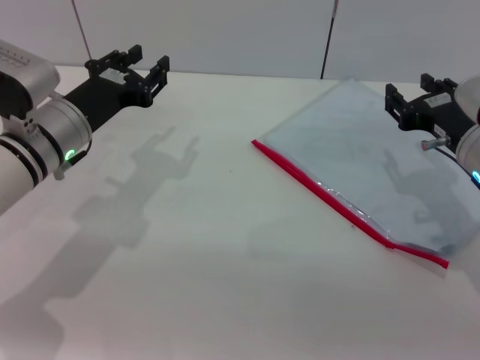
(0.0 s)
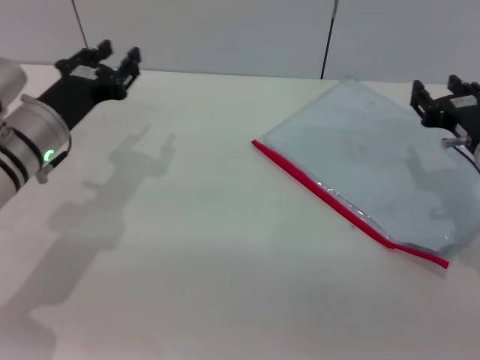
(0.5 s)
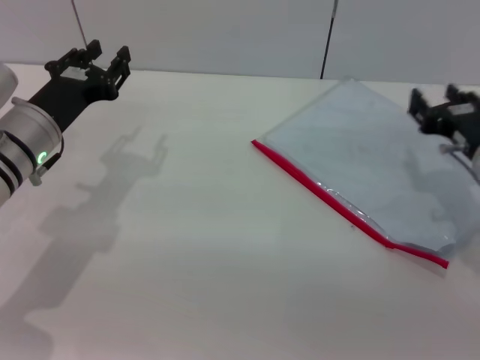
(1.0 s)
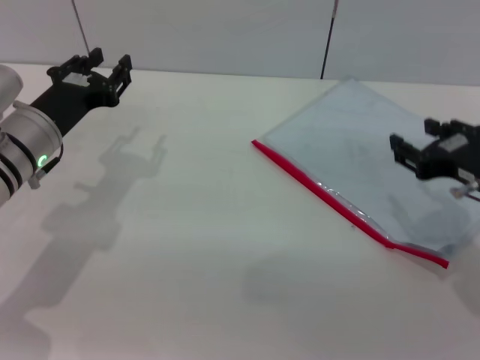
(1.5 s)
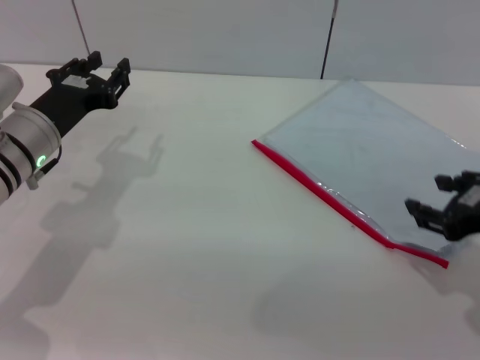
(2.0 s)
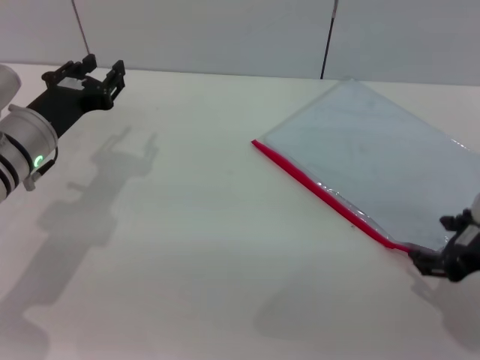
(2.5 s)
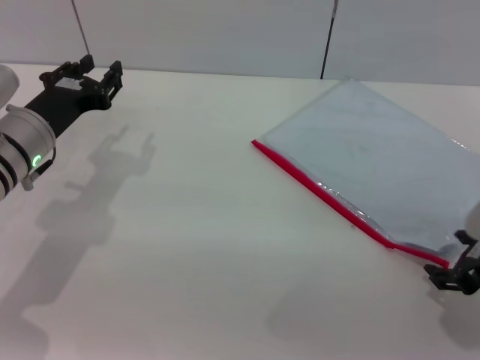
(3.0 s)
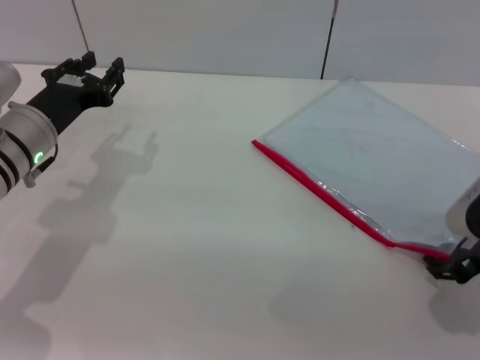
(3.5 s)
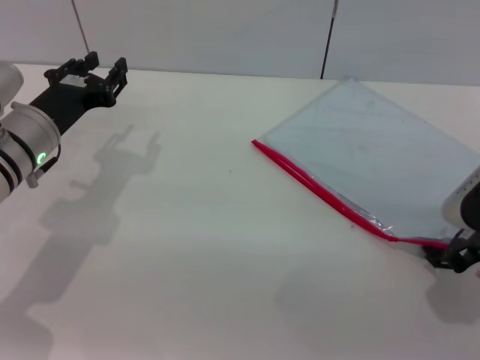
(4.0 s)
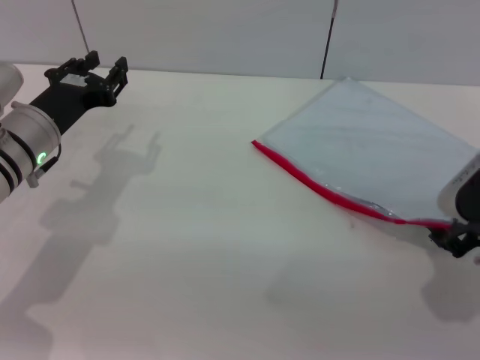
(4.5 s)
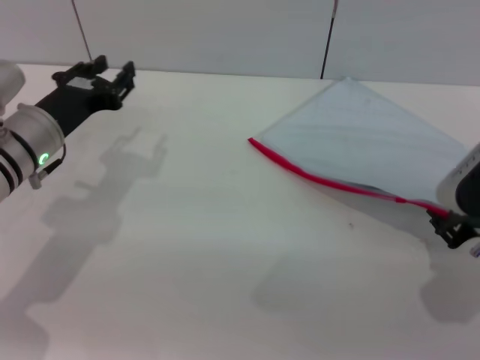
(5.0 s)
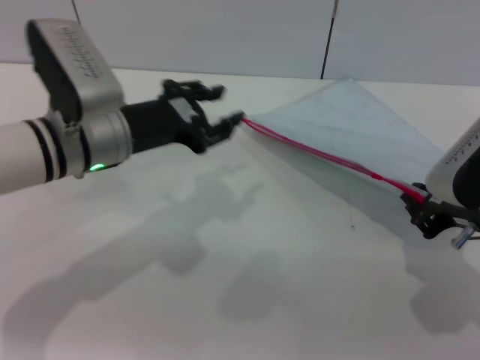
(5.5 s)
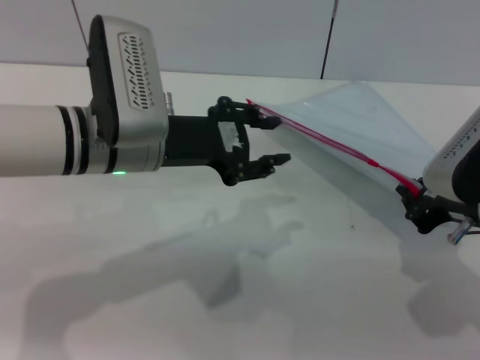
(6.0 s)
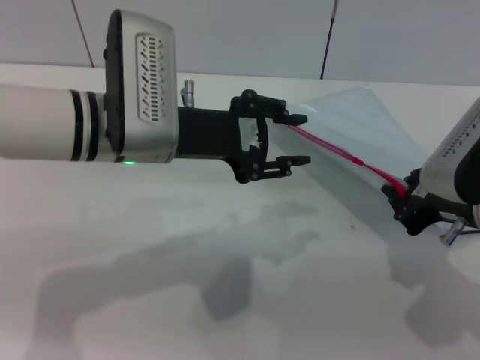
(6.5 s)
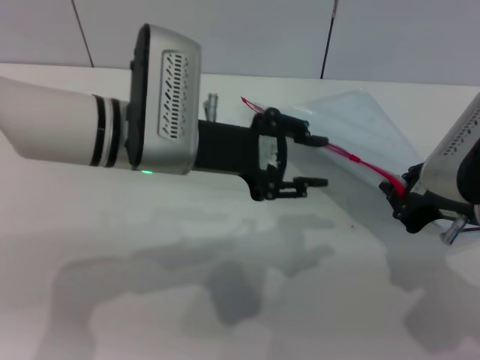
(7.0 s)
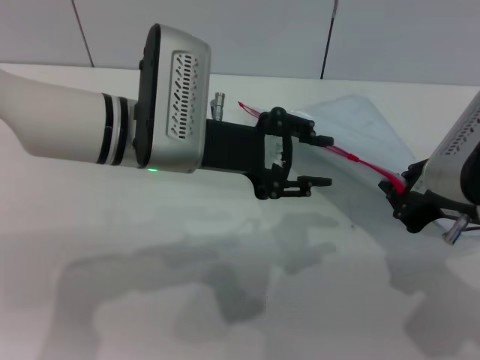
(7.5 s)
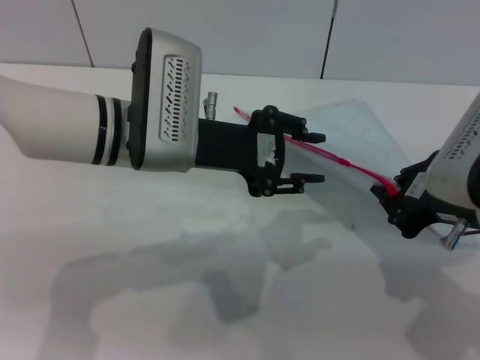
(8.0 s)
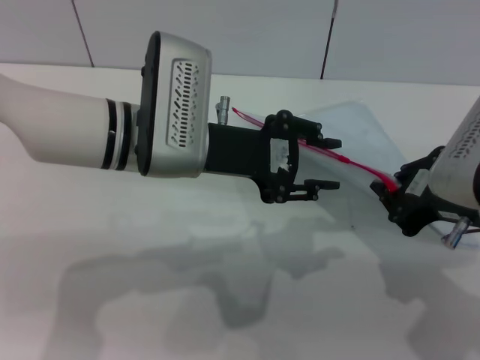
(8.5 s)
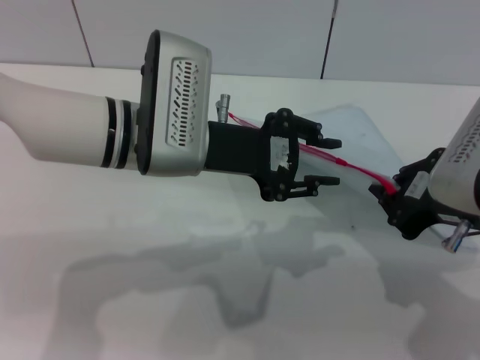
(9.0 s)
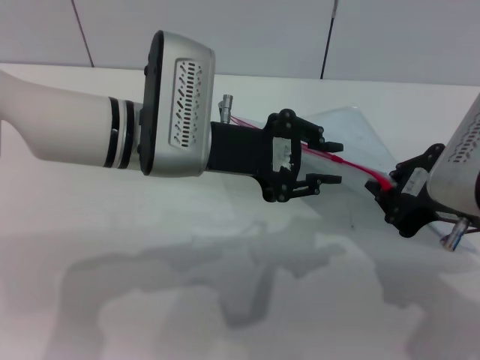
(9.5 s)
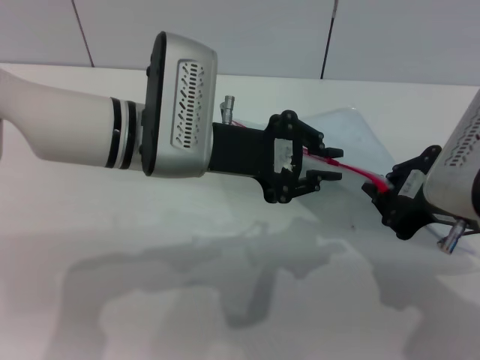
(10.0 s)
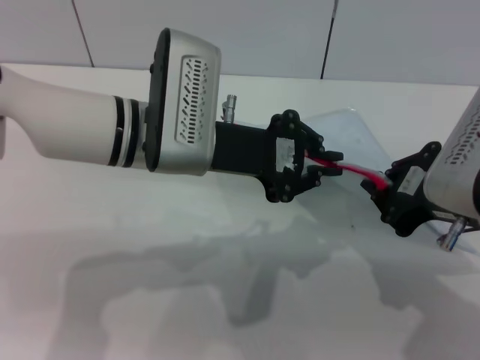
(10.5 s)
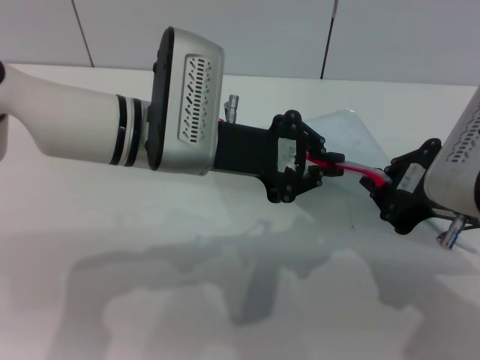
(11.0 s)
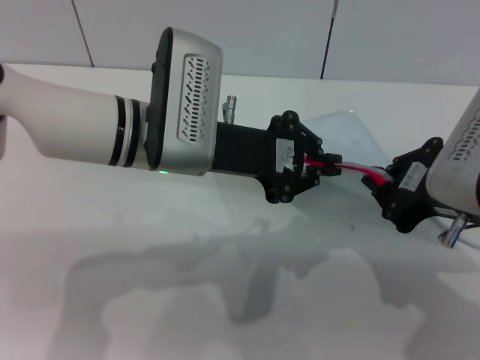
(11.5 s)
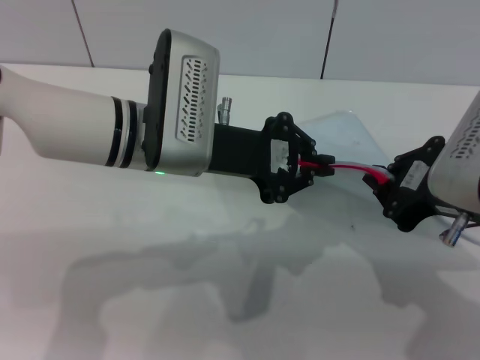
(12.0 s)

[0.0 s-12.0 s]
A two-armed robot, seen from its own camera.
Step, 0.0 to 4.5 s: Pick up the transparent plastic bag with the right gripper.
0.0 to 2.0 s: The right gripper goes roughly 10 cm backward.
4.0 to 6.0 s: The left gripper is displaced to the right and upward by some 10 cm. Meanwhile the right gripper ends up about 5 cm from where it was, and closes.
8.0 to 10.0 s: The left gripper closes.
10.0 to 12.0 s: The left gripper closes.

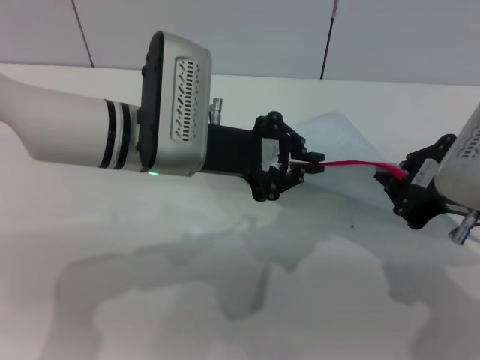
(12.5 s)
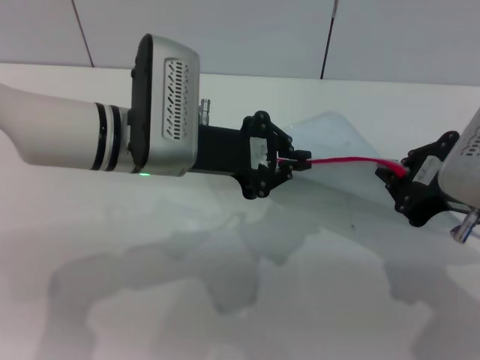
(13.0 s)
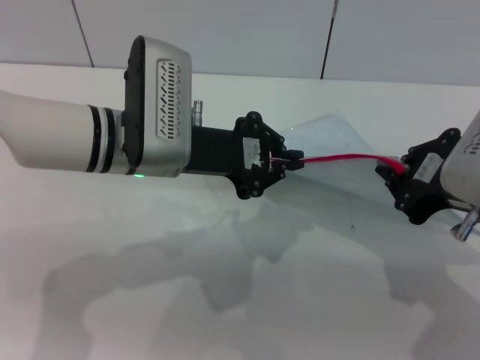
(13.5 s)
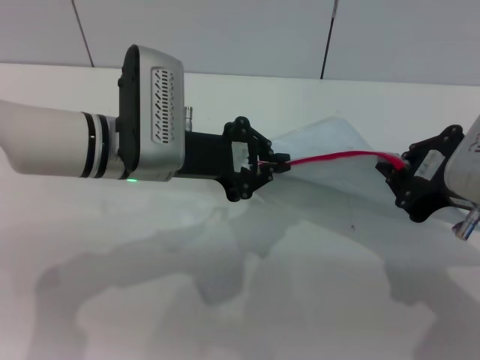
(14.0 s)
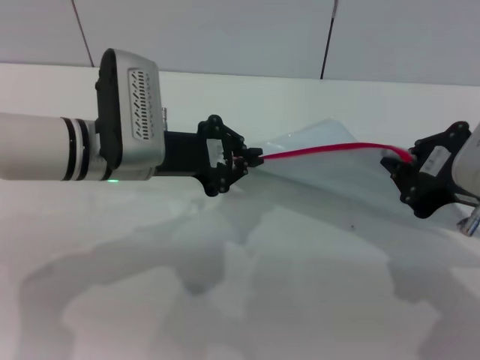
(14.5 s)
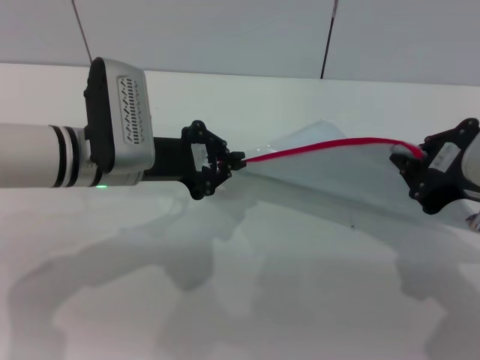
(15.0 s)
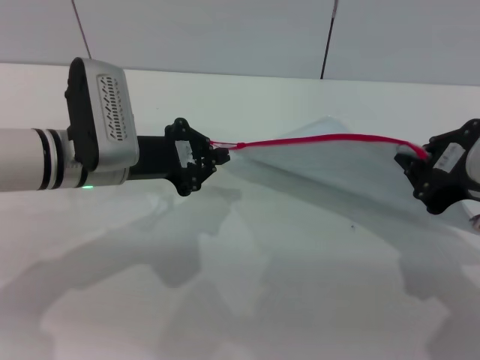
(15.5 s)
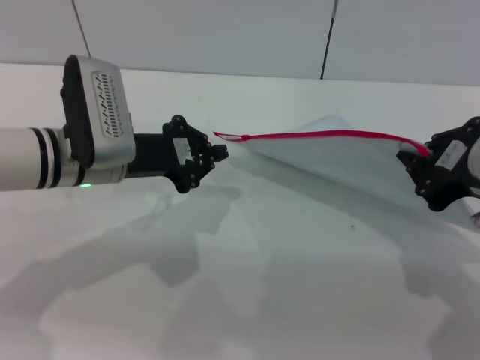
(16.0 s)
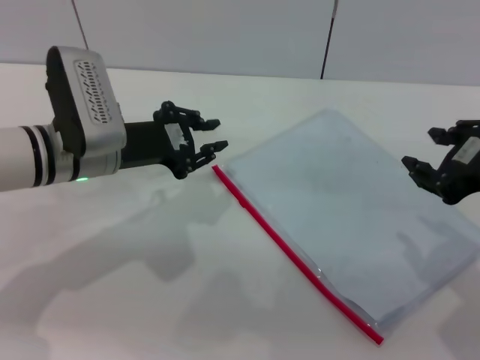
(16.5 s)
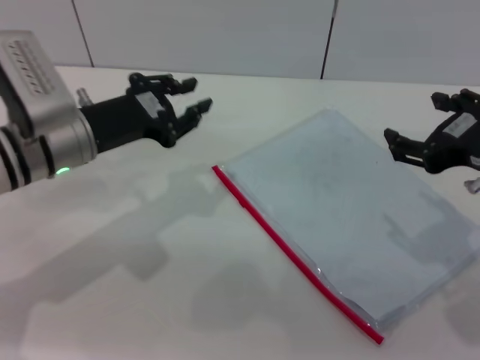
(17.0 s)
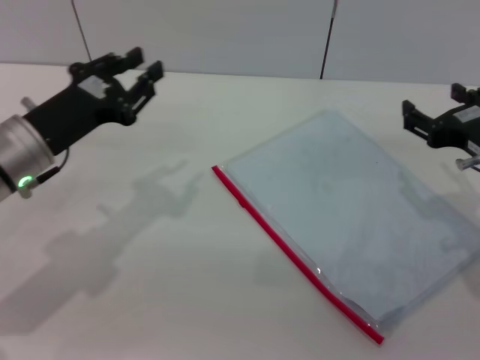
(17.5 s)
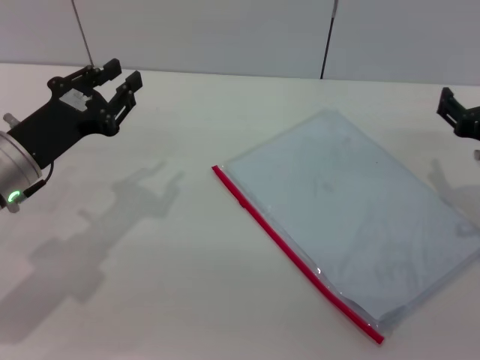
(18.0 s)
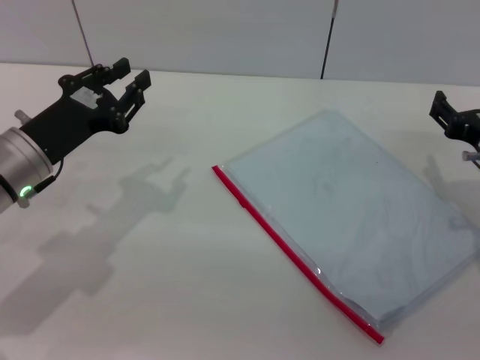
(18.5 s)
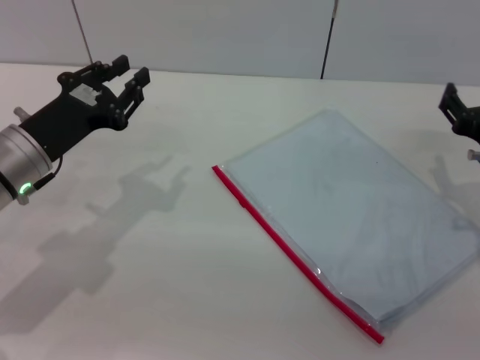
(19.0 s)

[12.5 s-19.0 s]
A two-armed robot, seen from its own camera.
Step, 12.5 to 16.0 s: Pulling up the zipper on the transparent plastic bag with the left gripper to close it.
Step, 16.5 to 17.5 s: Place the transparent plastic bag.
12.5 to 14.5 s: The left gripper ends up roughly 5 cm from where it was.
14.5 to 17.0 s: The right gripper opens. Meanwhile the left gripper heads to the left, covering roughly 5 cm, and opens up.
17.0 to 19.0 s: The right gripper shifts about 10 cm downward and forward.

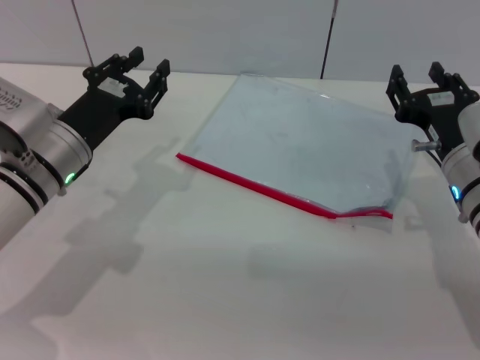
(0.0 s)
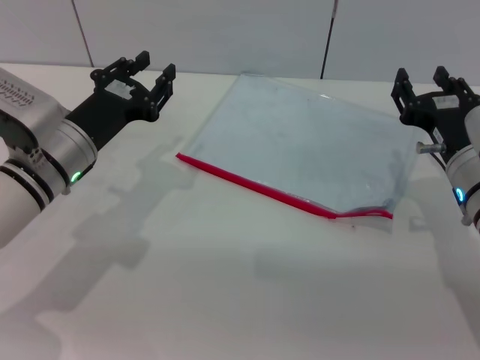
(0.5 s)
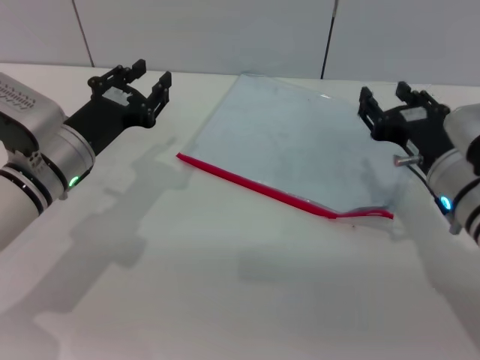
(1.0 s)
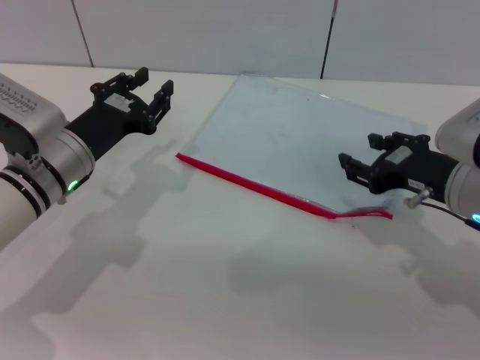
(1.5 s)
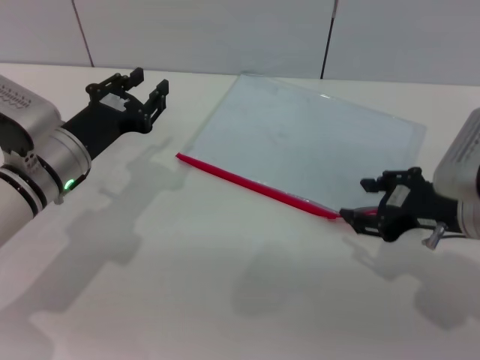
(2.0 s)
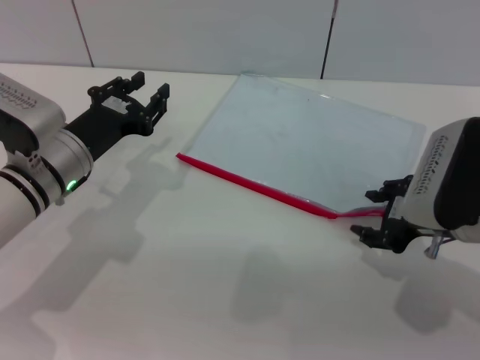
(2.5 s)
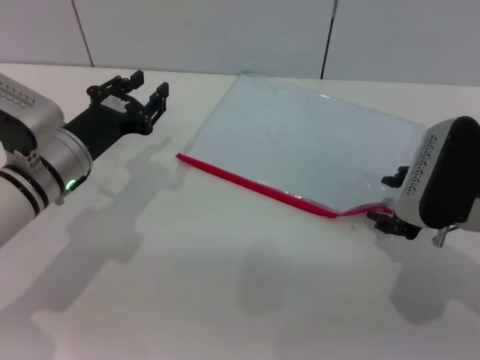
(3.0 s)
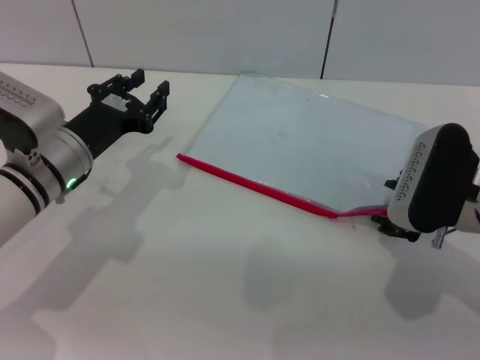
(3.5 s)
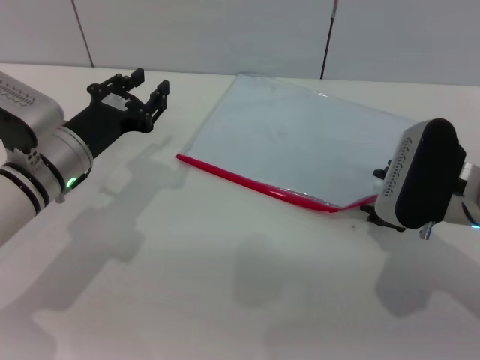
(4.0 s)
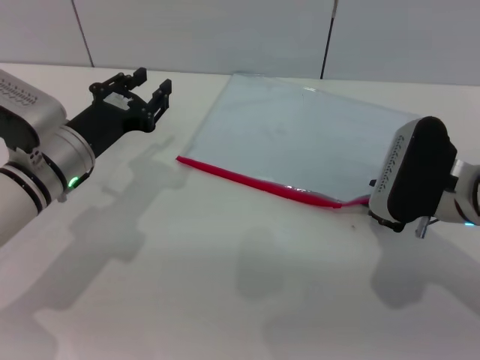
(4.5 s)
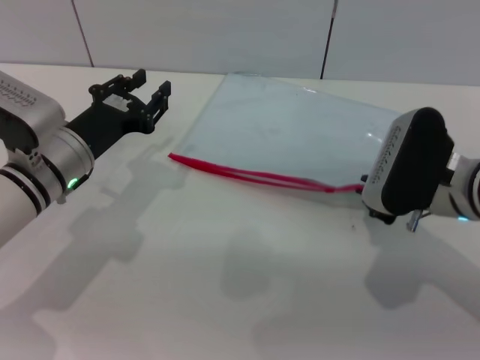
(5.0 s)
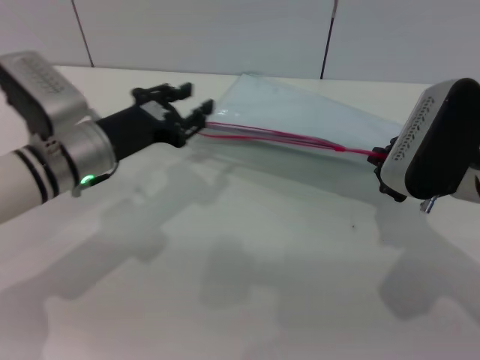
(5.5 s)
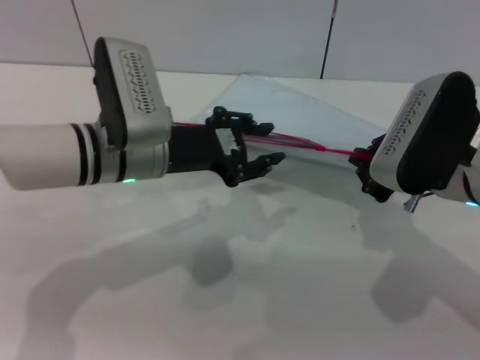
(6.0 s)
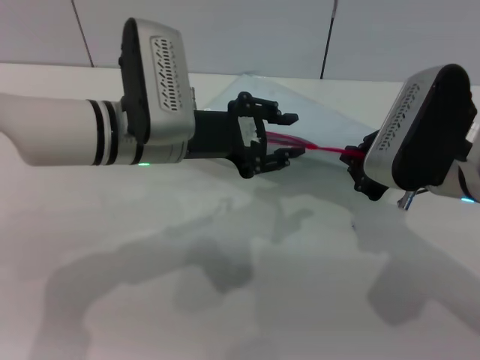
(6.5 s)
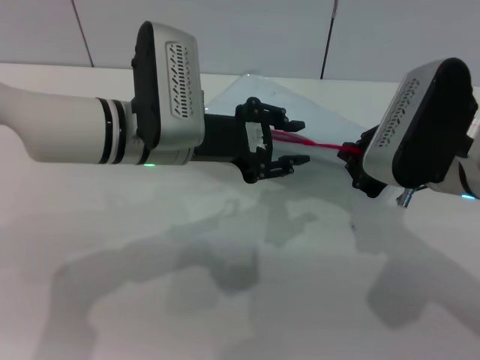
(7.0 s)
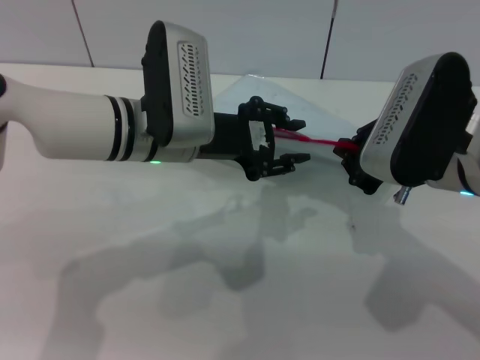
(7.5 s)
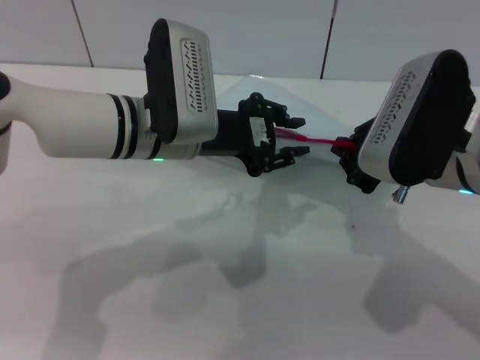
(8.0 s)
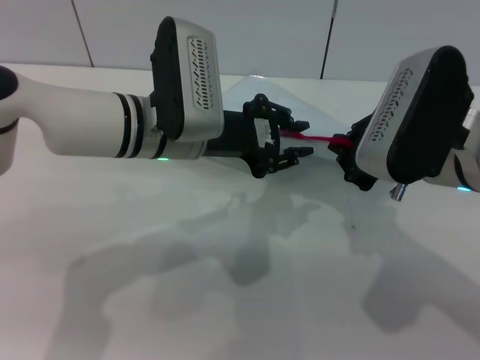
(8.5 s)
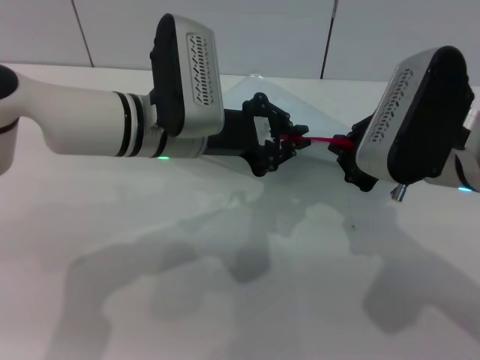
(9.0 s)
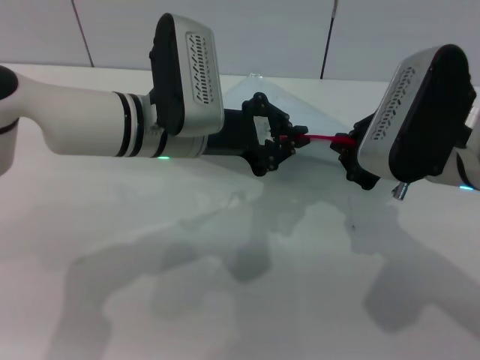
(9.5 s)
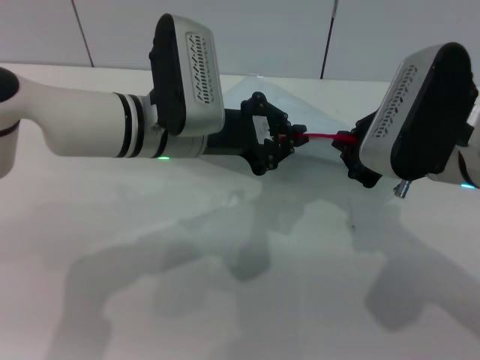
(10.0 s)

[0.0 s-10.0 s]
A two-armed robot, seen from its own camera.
Step, 0.0 to 5.0 s: Pick up the transparent plastic bag with the right gripper.
4.0 to 6.0 s: The right gripper ends up about 5 cm from where it was, and closes its fingers; the left gripper travels to the right by roughly 5 cm.
8.0 to 10.0 s: The left gripper closes its fingers.
